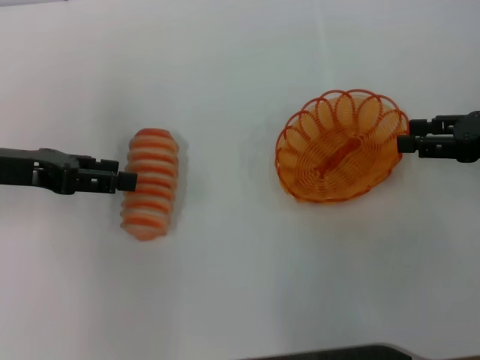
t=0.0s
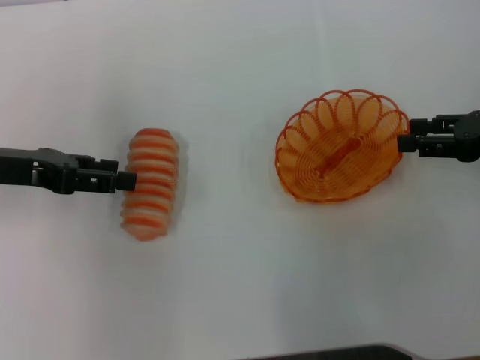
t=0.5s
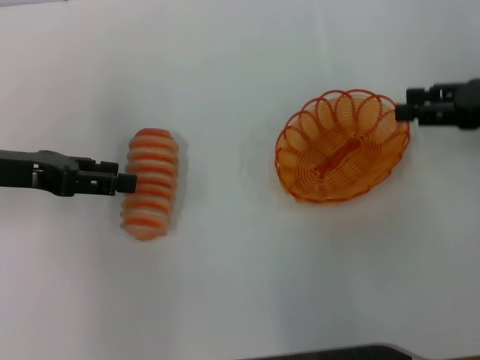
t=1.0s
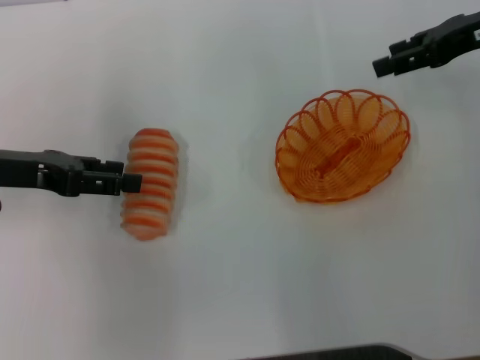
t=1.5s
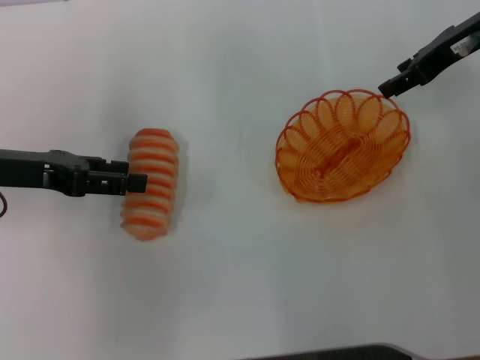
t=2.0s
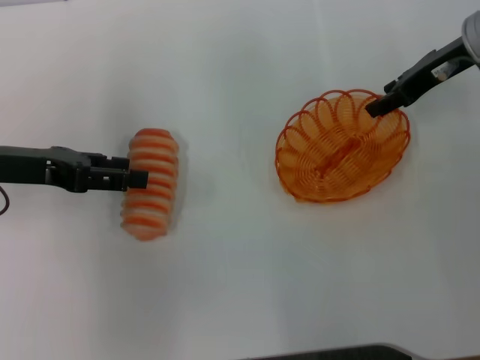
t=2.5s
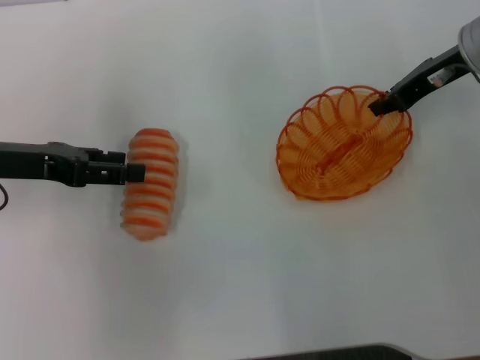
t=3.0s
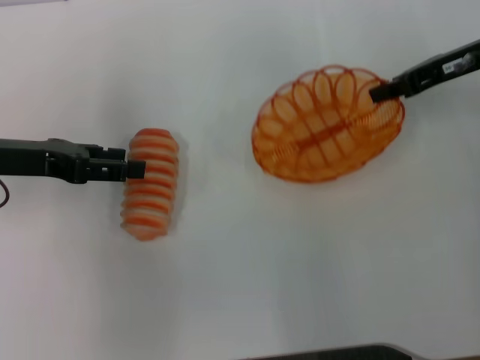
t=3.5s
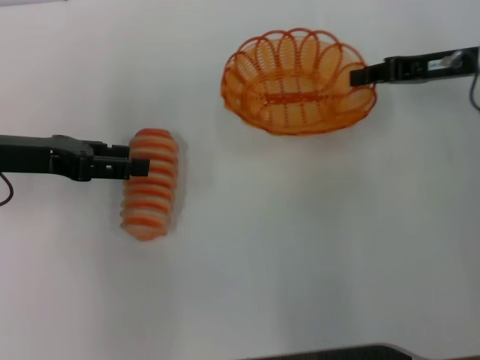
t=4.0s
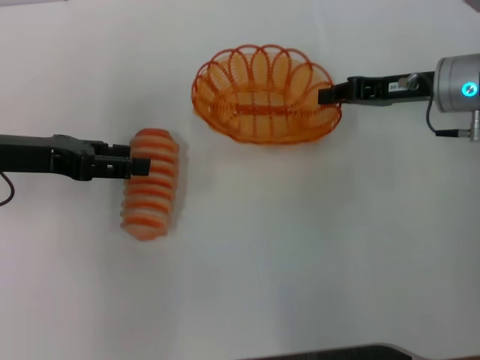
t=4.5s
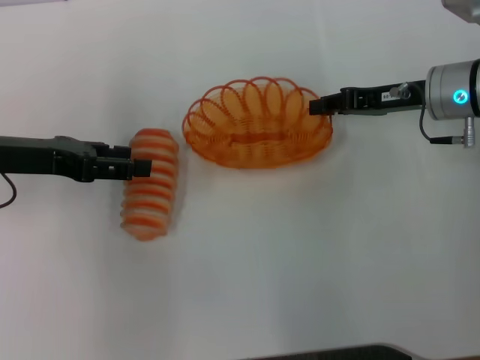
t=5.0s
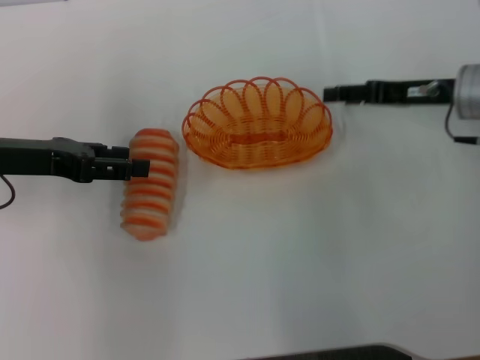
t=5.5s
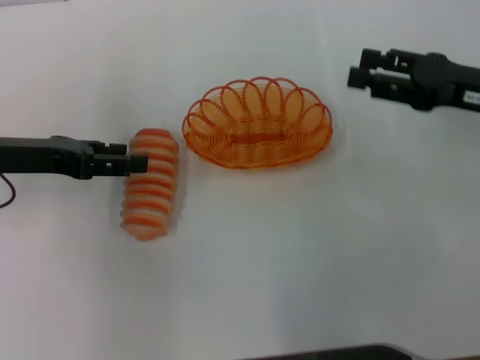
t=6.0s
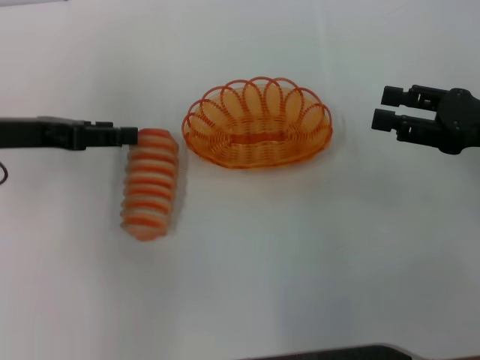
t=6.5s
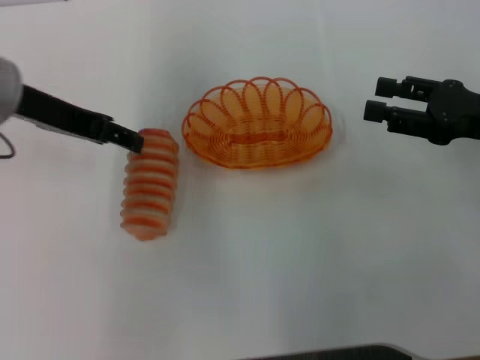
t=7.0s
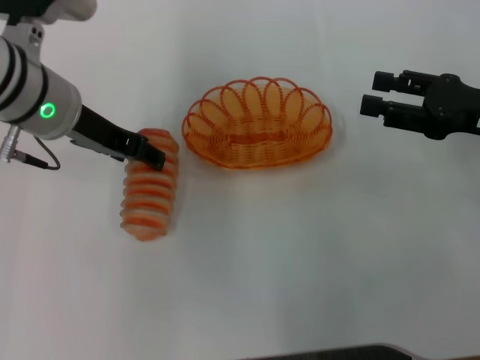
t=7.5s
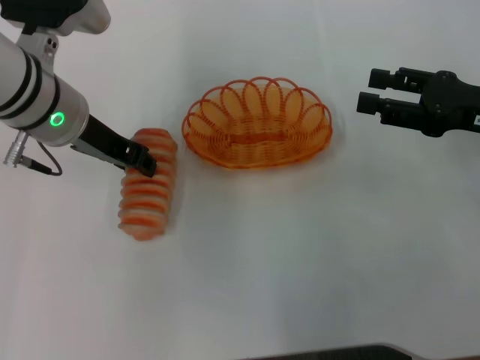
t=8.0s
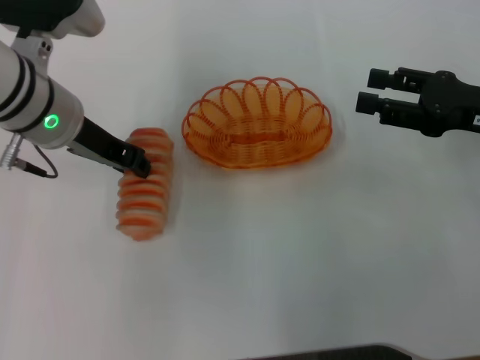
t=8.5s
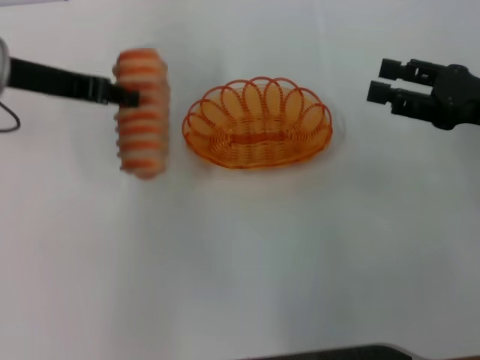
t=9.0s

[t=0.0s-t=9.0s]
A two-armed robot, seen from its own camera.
Step, t=0.0s to t=3.5s: Pick up the basket with the right gripper.
Step, t=4.0s to t=5.5s: Place the basket in the center of view with the right gripper.
Step, t=6.0s to t=8.5s: Pick up the long bread with the left gripper.
t=0.0s to t=2.0s: The right gripper heads forward, upward and to the left, covering approximately 15 cm.
t=2.0s to t=4.5s: The right gripper is displaced downward by roughly 10 cm, and closes up.
t=4.5s to t=7.0s: The right gripper heads backward and to the right, covering approximately 10 cm, and opens up, while the left gripper travels upward and to the right by about 10 cm.
t=7.0s to t=9.0s: The left gripper closes its fingers.

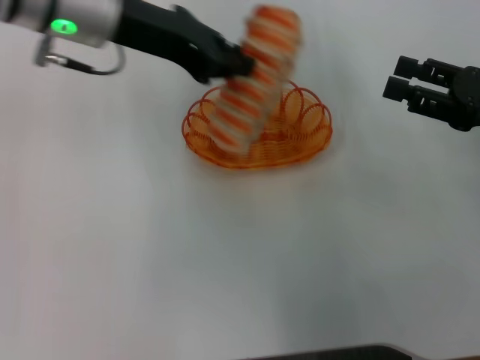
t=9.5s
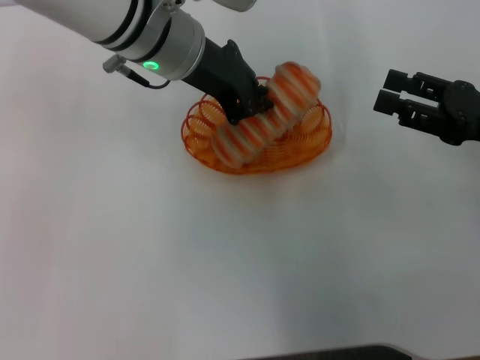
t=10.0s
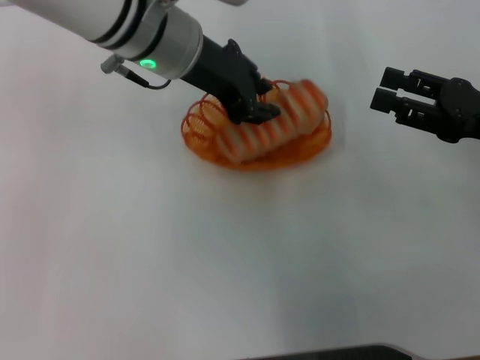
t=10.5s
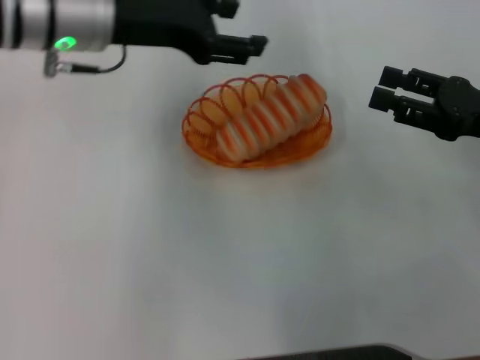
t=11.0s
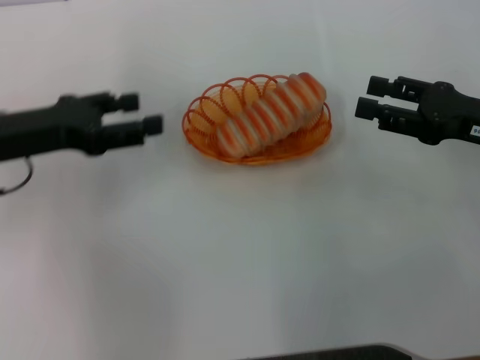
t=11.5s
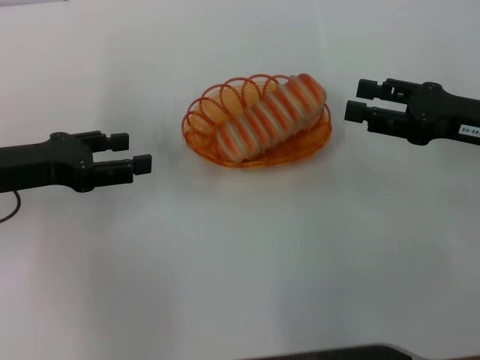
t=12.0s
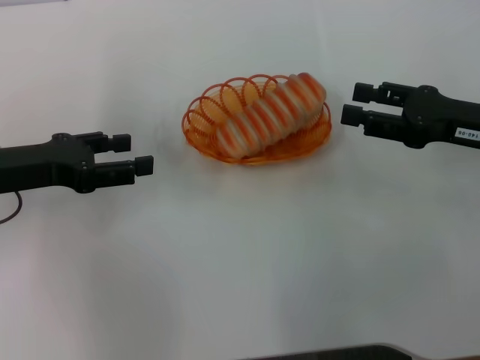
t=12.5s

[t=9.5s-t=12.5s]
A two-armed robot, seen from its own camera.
Step, t=9.5s to t=10.5s: Place the long bread into the basket with the left gripper.
t=9.5s to t=11.0s: The left gripper goes to the right and returns, roughly 5 cm each way, and opens its fingers.
t=11.0s to t=12.5s: The left gripper travels to the left, downward and backward by some 20 cm.

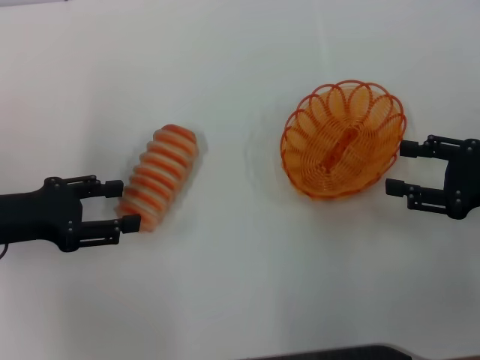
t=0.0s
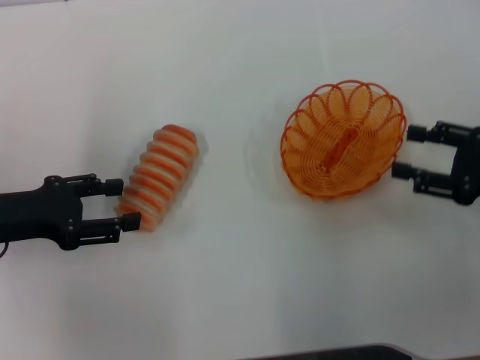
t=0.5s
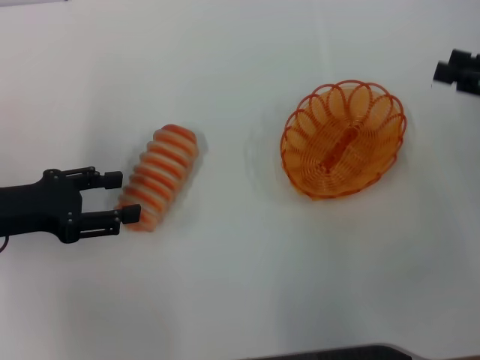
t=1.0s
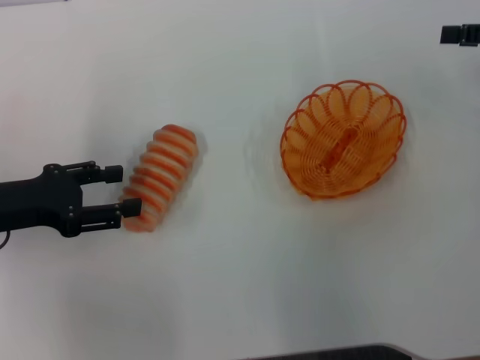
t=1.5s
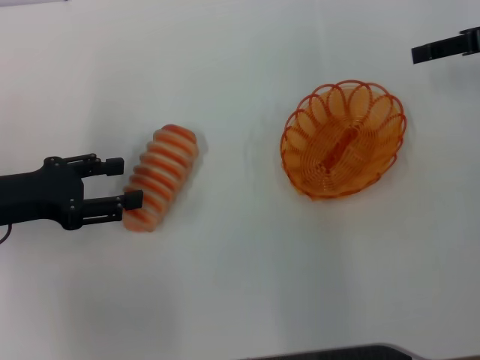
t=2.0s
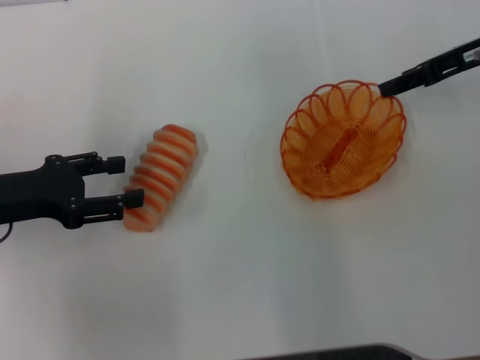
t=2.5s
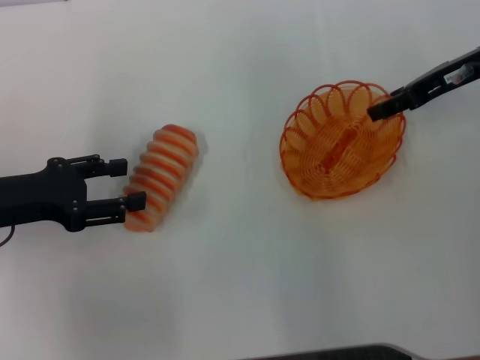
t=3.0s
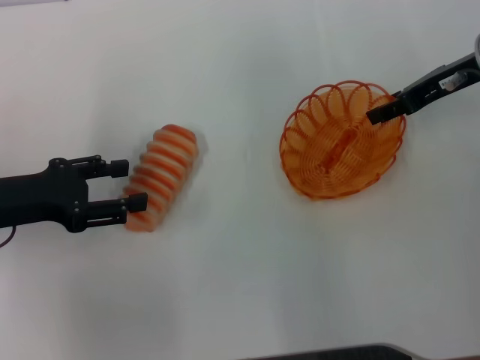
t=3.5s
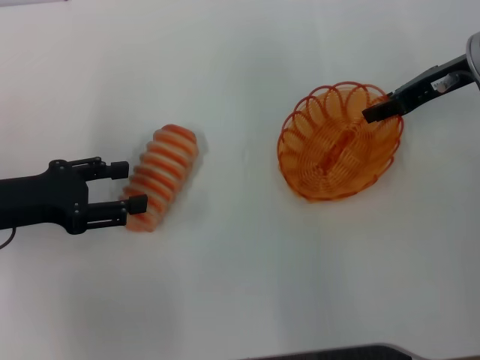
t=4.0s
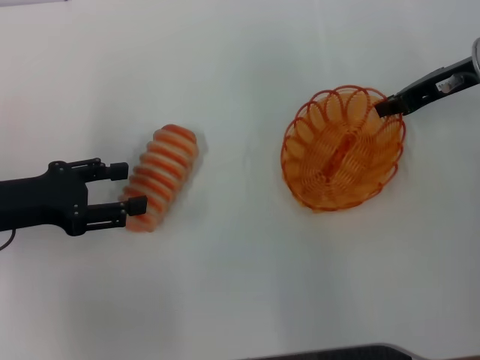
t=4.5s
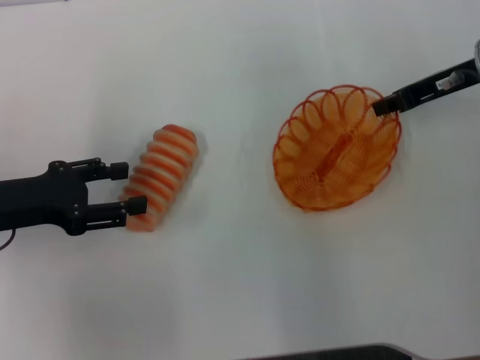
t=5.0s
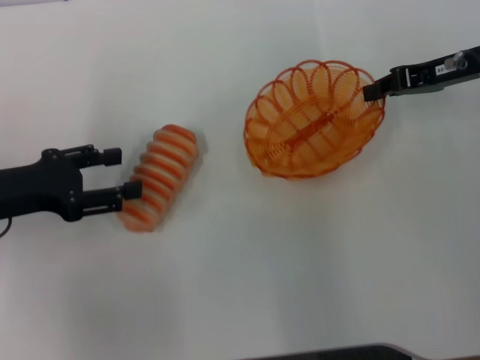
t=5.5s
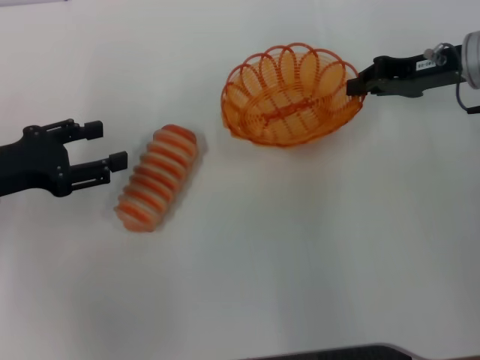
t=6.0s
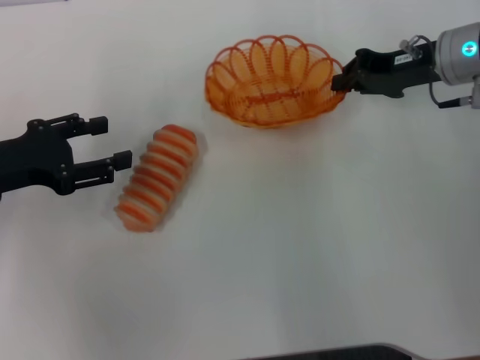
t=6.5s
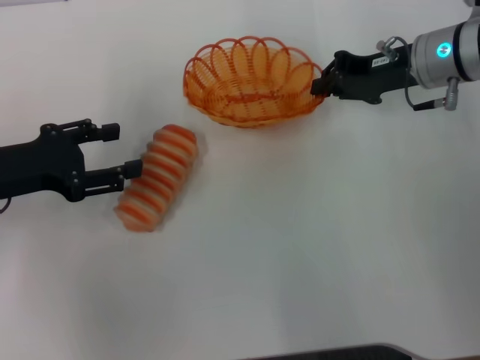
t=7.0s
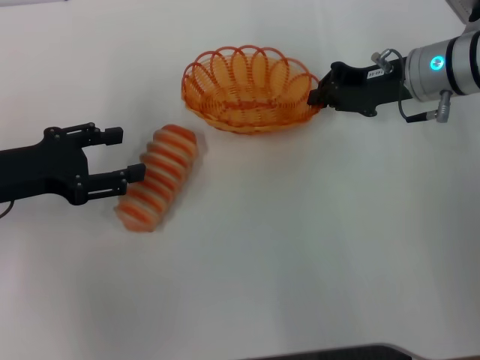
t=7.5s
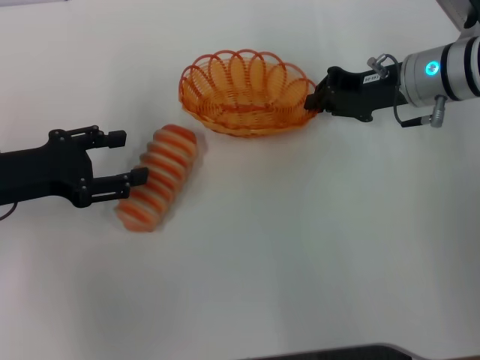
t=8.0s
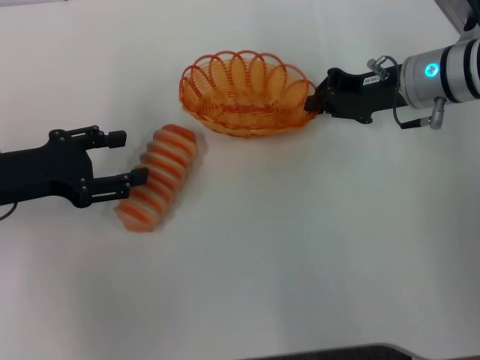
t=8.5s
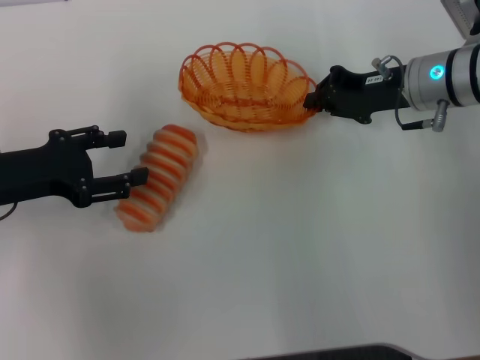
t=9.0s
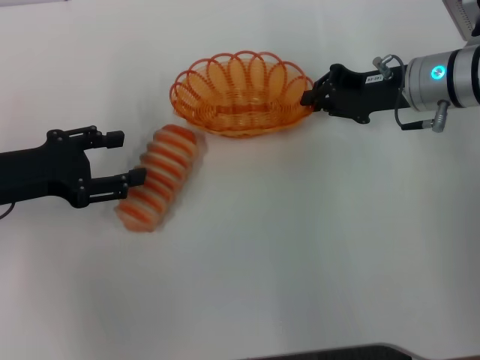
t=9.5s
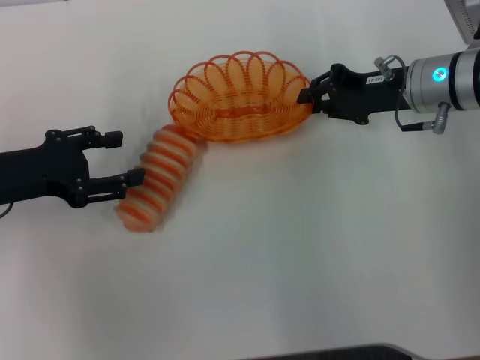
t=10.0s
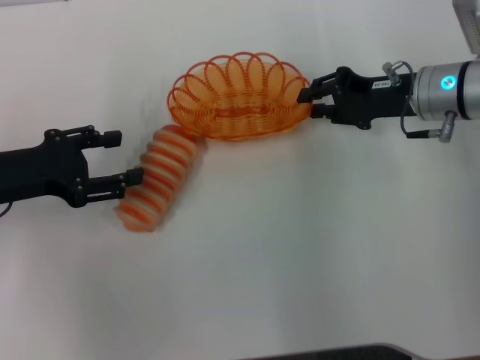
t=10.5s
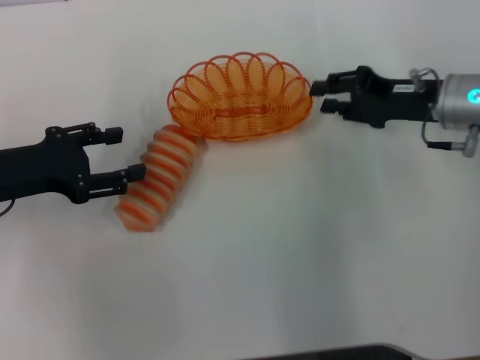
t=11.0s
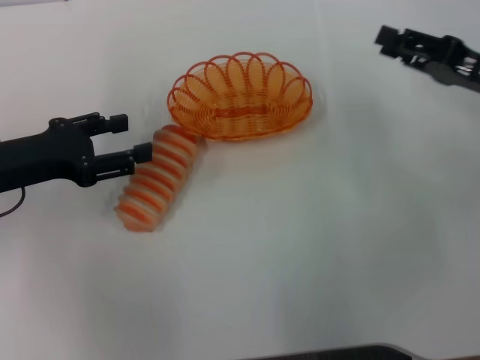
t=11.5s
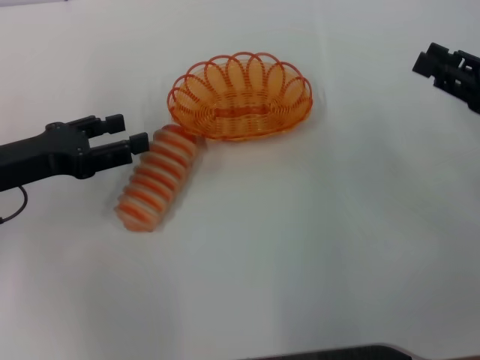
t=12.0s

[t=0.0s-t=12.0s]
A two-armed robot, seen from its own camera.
Step, t=0.0s to t=5.0s: Pick up the basket with the right gripper.
Step, t=5.5s to t=11.0s: Place the basket in the center of view with the right gripper.
t=0.0s to t=2.0s: The right gripper travels forward and upward by about 20 cm.
t=2.0s to t=4.0s: The right gripper travels to the left by about 5 cm.
t=4.0s to t=6.0s: The right gripper closes.
t=6.0s to t=8.0s: The right gripper changes place by some 5 cm.
t=8.0s to t=10.0s: The grippers make only small movements.
t=10.0s to t=12.0s: The right gripper travels backward and to the right by some 15 cm, and opens its fingers.

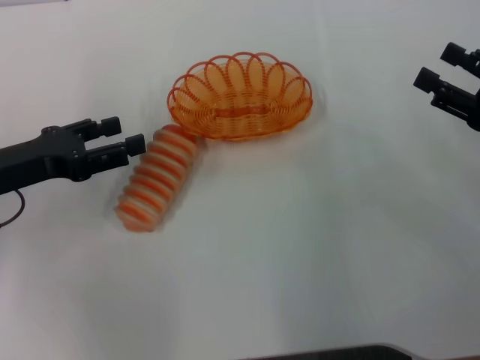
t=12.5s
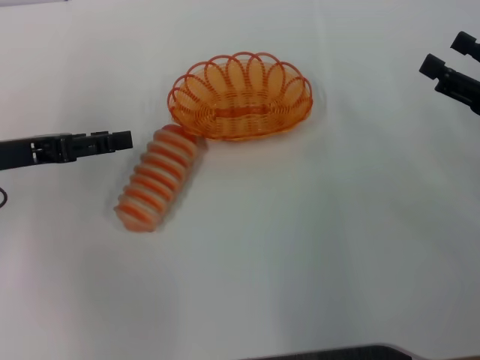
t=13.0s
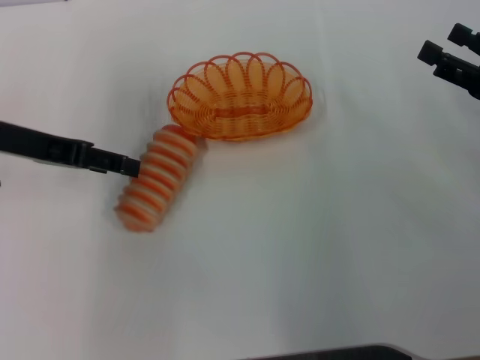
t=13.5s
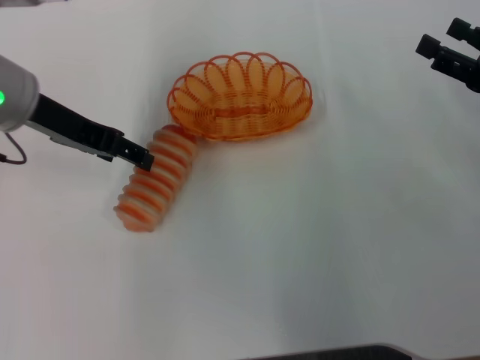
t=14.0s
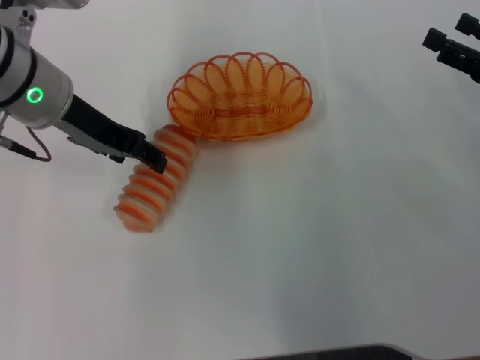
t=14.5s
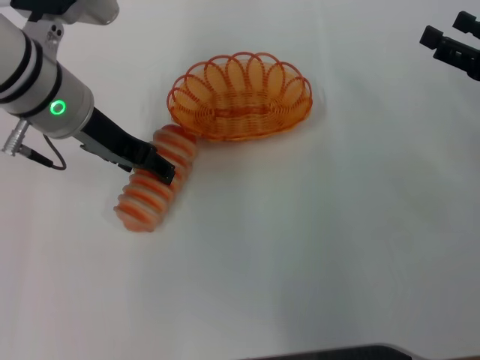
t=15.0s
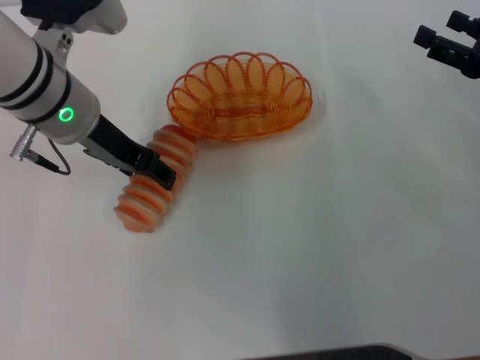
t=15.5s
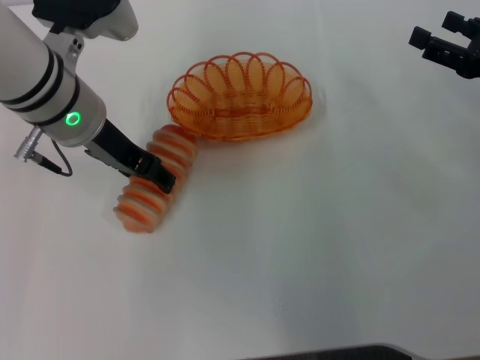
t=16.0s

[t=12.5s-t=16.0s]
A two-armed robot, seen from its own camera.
t=12.5s to t=14.5s: The left gripper moves to the right, upward and forward, roughly 15 cm.
t=14.5s to t=16.0s: The grippers stay close to where they were, moving slightly.
